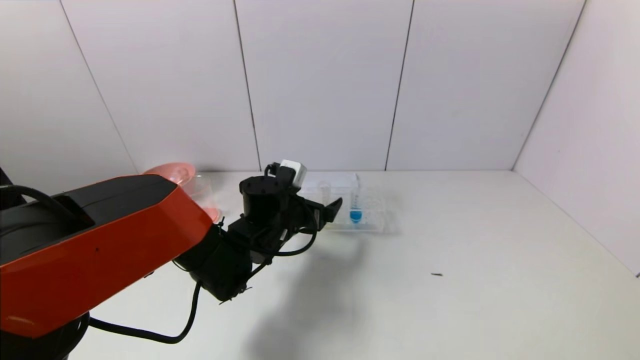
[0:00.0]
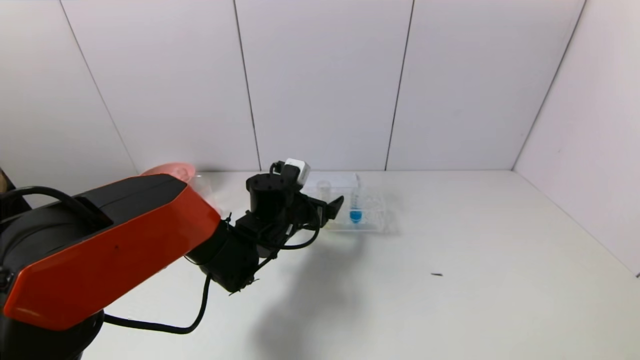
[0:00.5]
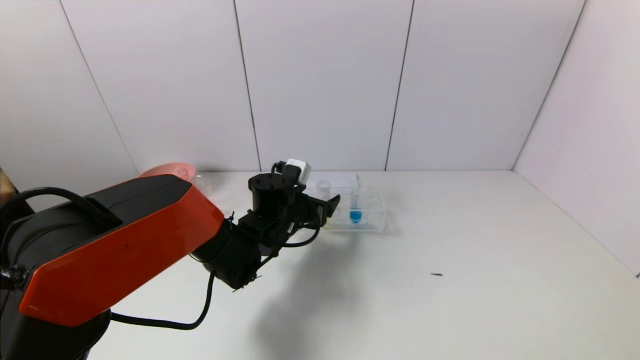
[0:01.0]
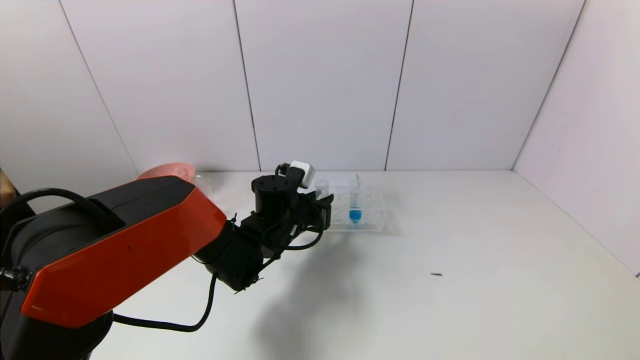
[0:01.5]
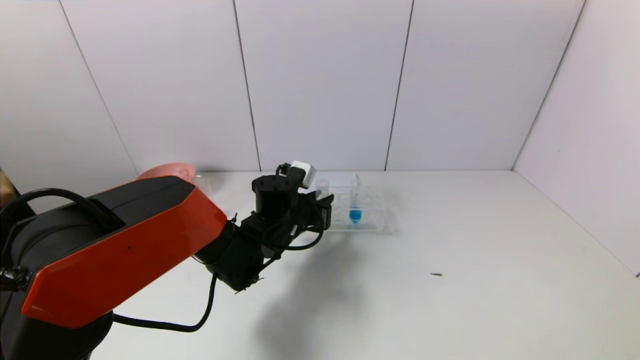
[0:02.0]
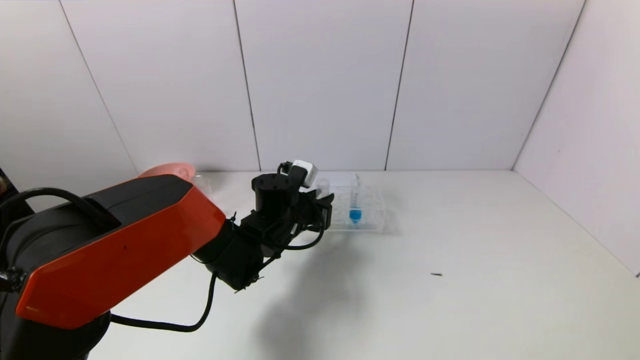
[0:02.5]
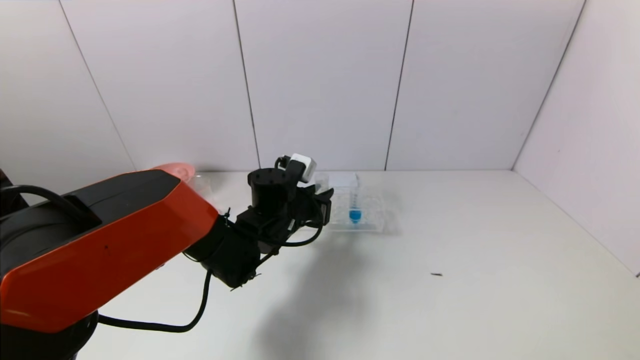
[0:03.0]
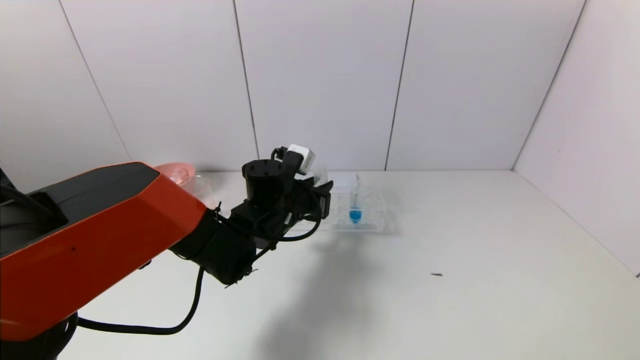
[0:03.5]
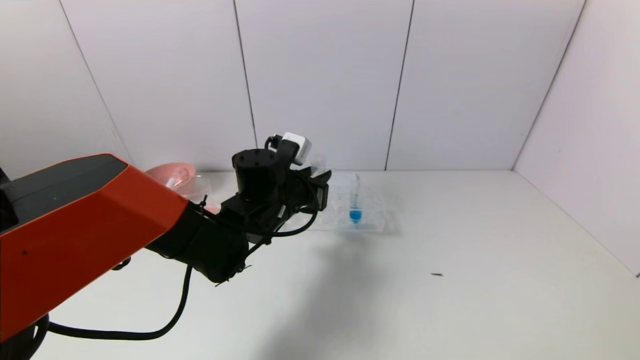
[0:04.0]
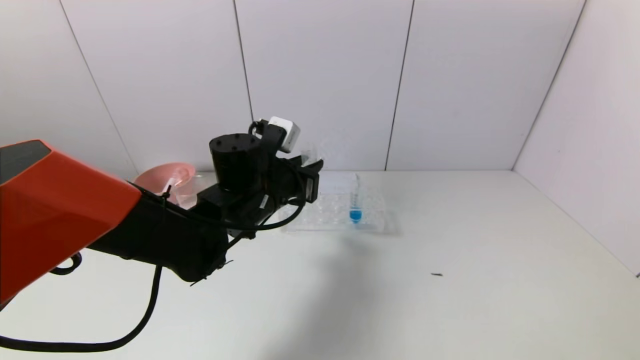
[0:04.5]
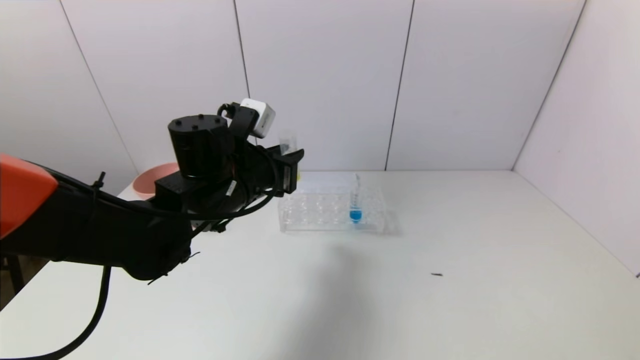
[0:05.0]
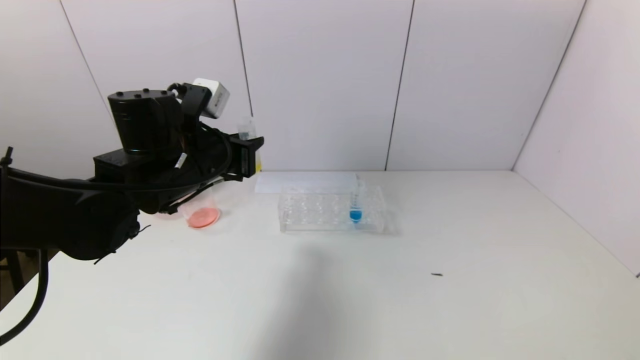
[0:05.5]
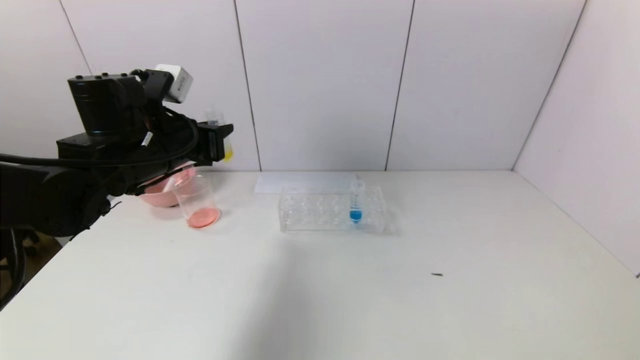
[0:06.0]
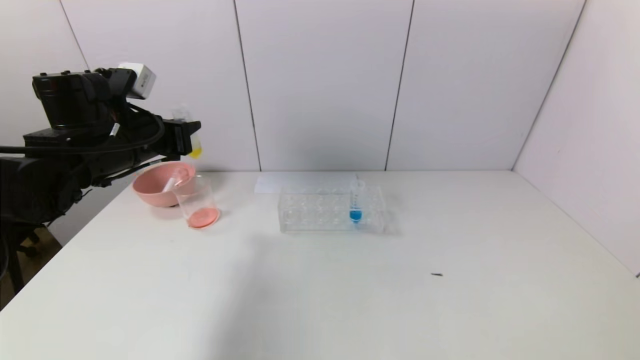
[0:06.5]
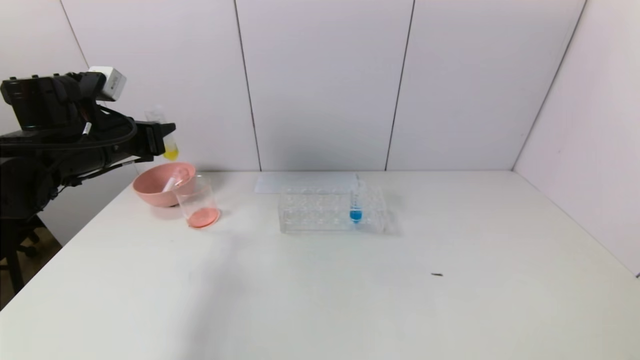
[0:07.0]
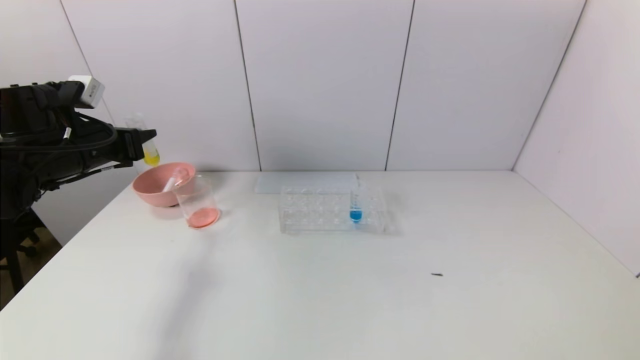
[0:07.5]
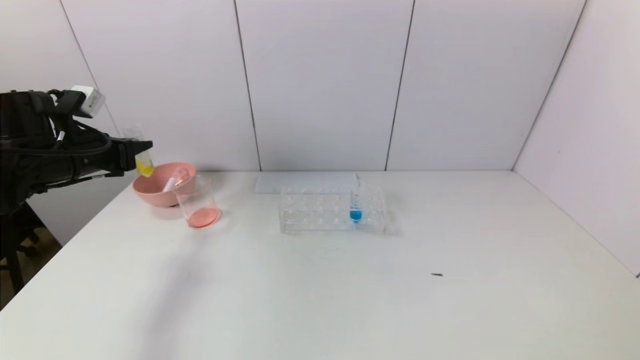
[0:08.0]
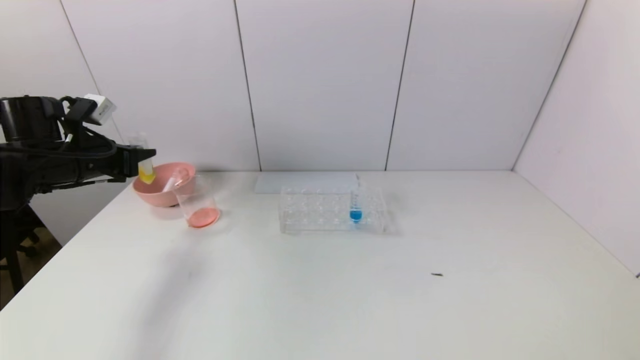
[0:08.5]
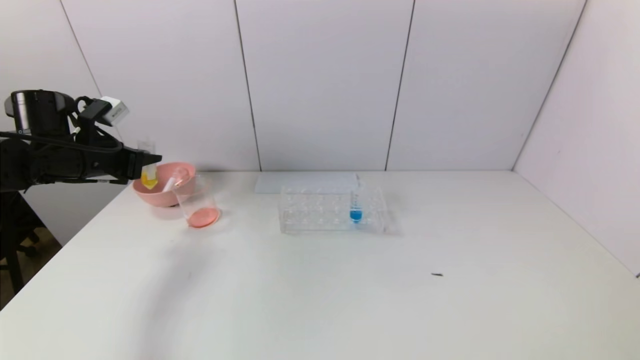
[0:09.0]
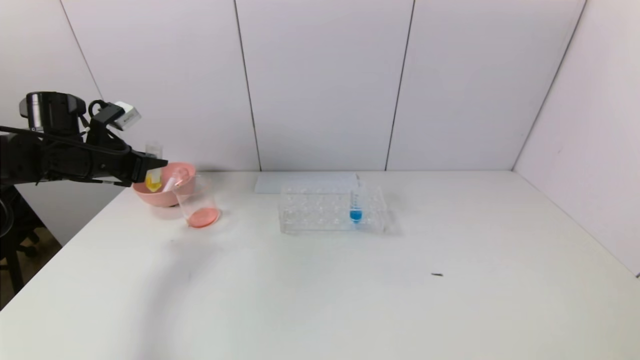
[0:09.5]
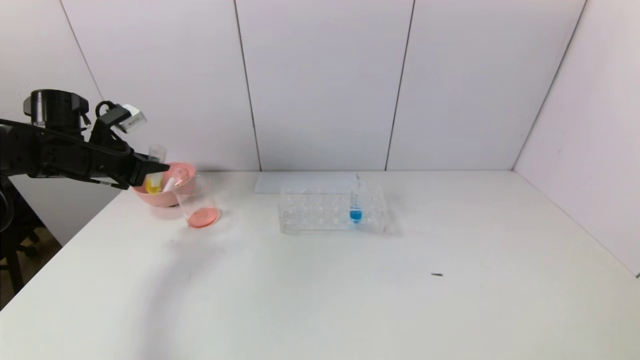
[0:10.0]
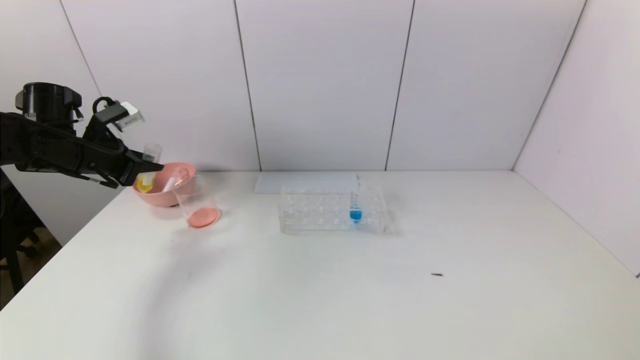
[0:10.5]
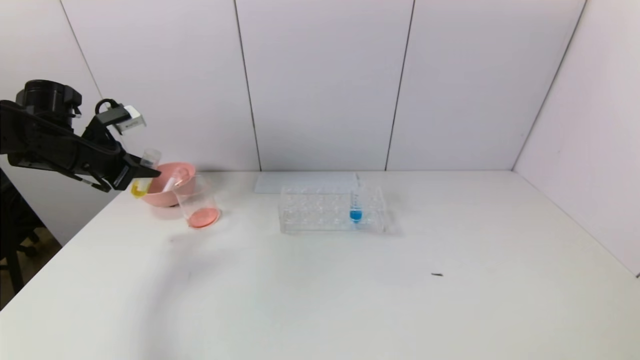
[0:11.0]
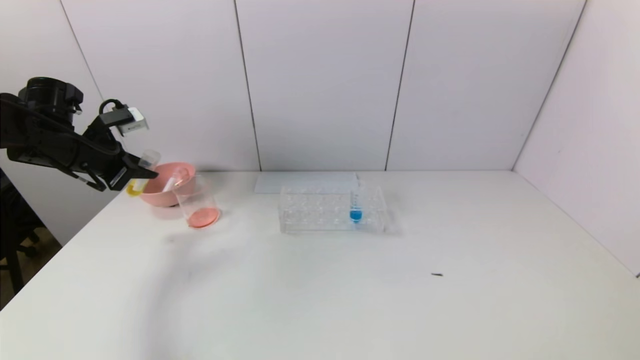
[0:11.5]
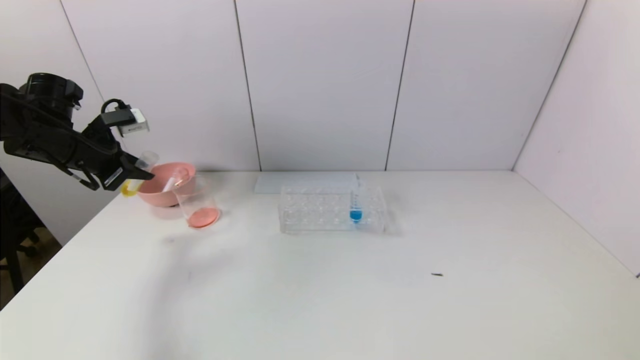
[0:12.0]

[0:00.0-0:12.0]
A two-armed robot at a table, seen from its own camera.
Task of the whole recording: pick up the test tube with yellow pigment and the test tube with red pigment by grippers and pour them into the beaker.
Step, 0:00.0 to 0:02.0: Grasp the yellow reagent with the left gripper.
0:00.0 to 0:02.0: The left gripper closes its fingers.
0:02.0 to 0:04.0: The left gripper travels upward by about 5 cm.
0:04.0 to 0:06.0: The left gripper moves to the left and upward, some 20 cm.
0:06.0 to 0:08.0: The left gripper heads to the left, covering about 15 cm.

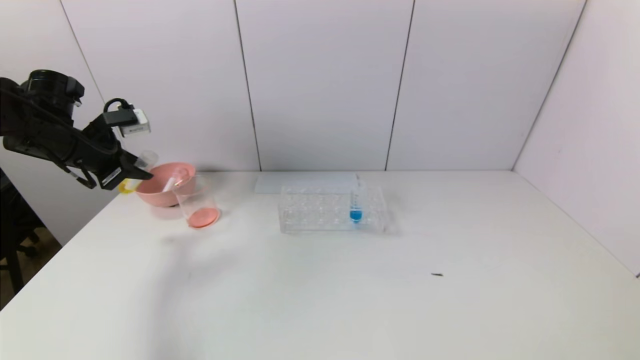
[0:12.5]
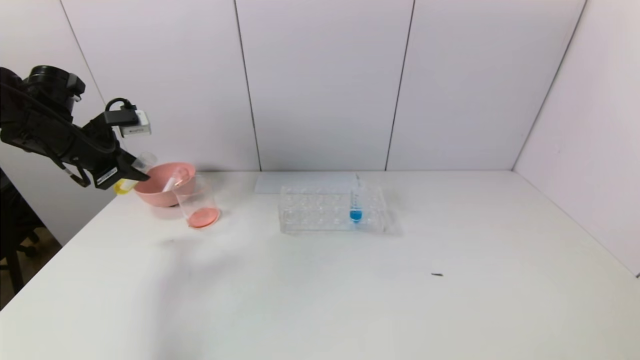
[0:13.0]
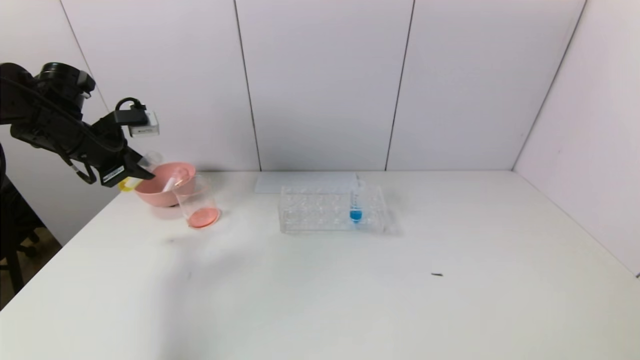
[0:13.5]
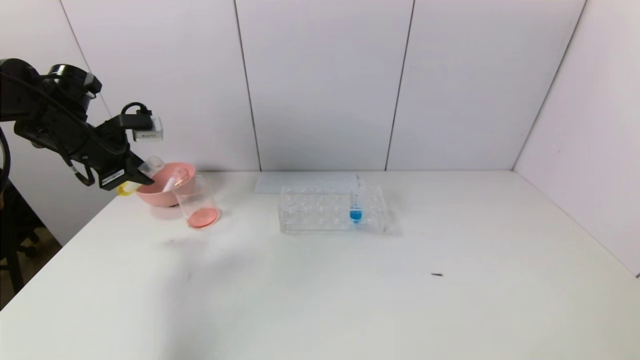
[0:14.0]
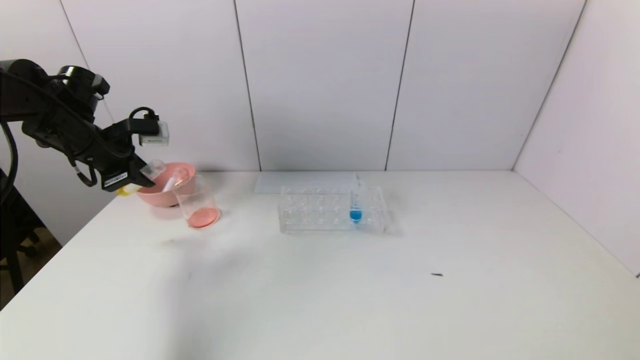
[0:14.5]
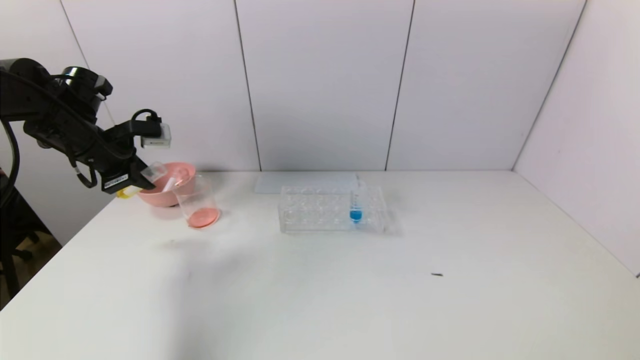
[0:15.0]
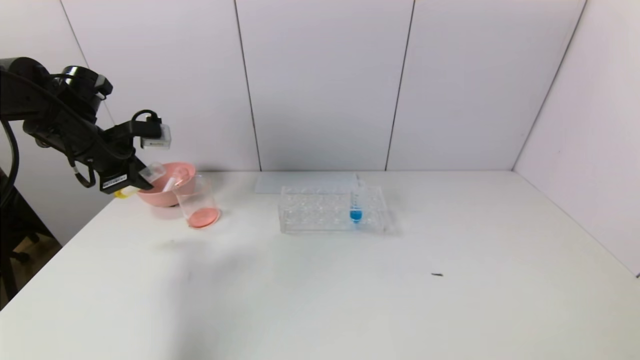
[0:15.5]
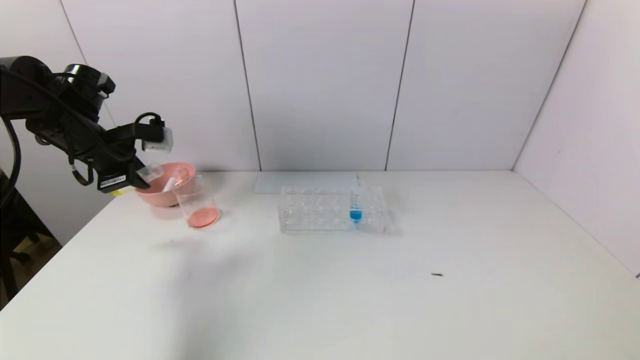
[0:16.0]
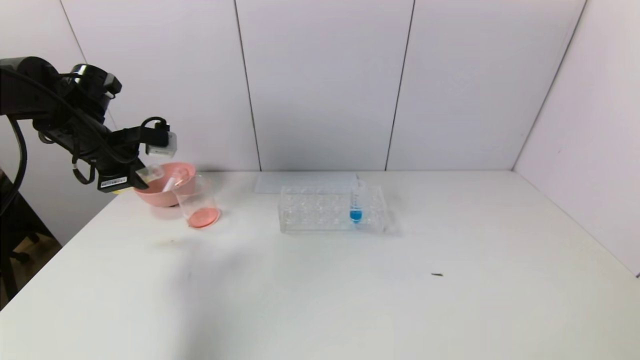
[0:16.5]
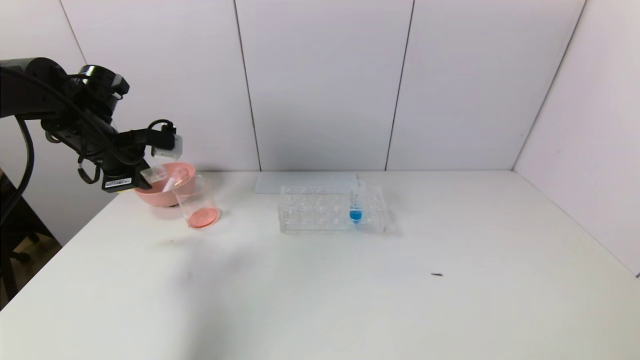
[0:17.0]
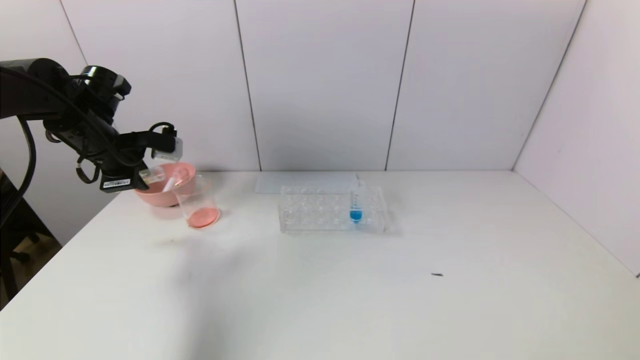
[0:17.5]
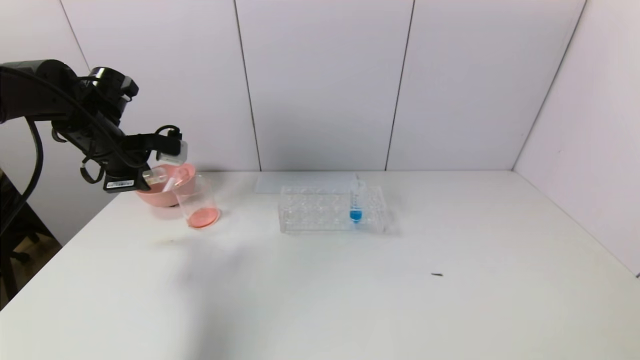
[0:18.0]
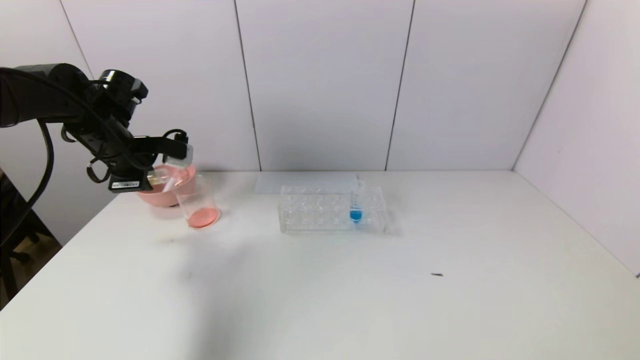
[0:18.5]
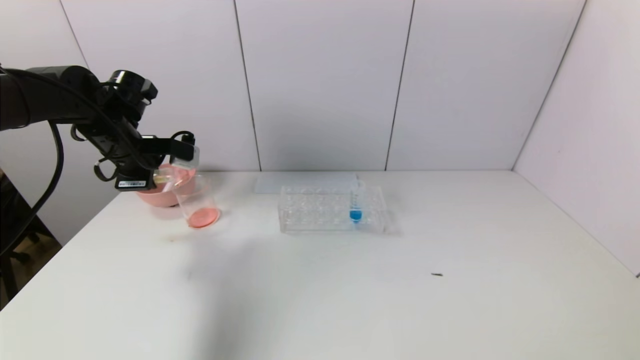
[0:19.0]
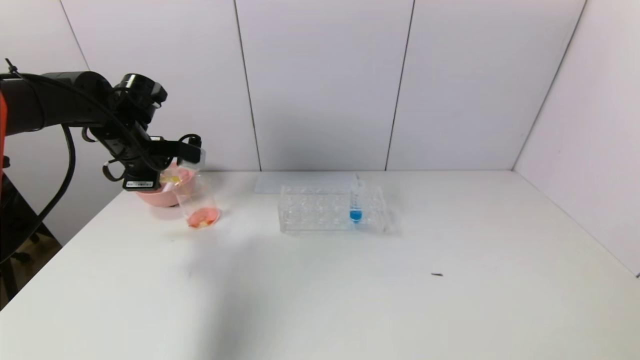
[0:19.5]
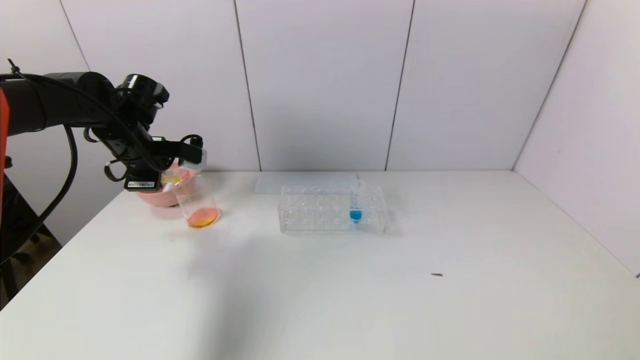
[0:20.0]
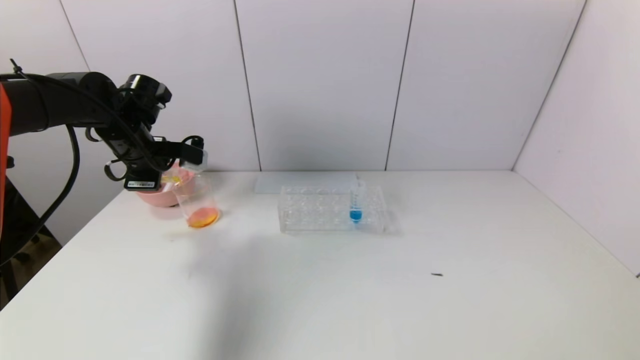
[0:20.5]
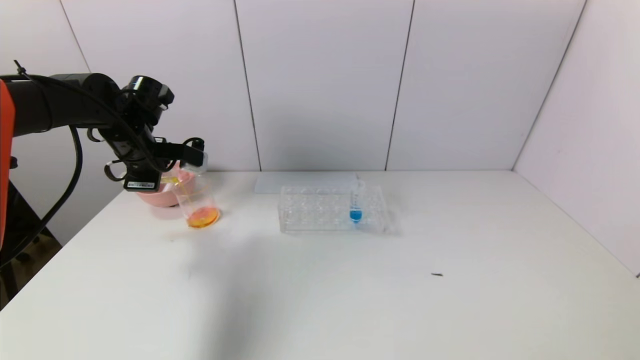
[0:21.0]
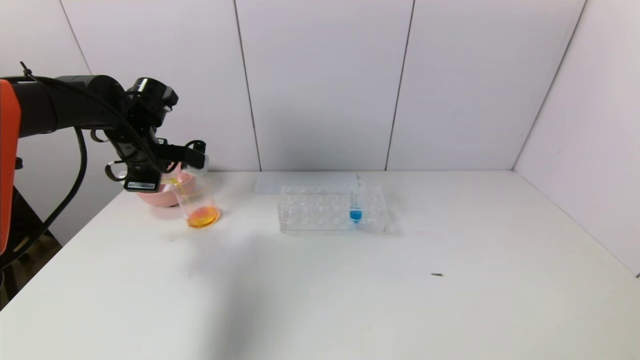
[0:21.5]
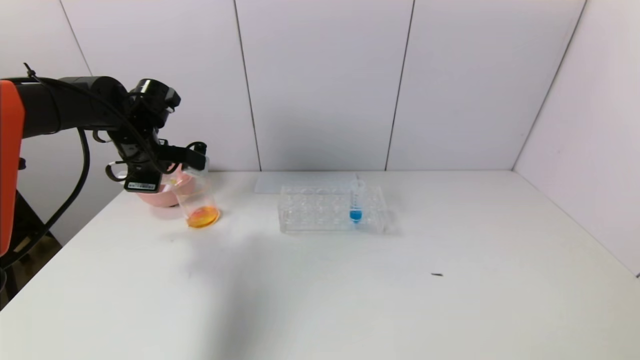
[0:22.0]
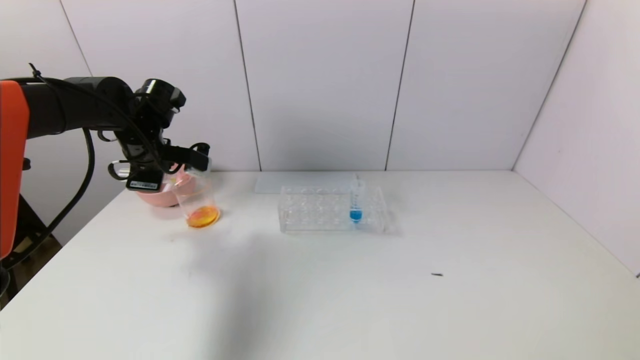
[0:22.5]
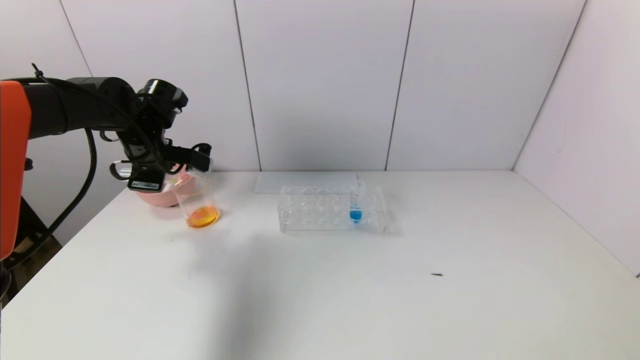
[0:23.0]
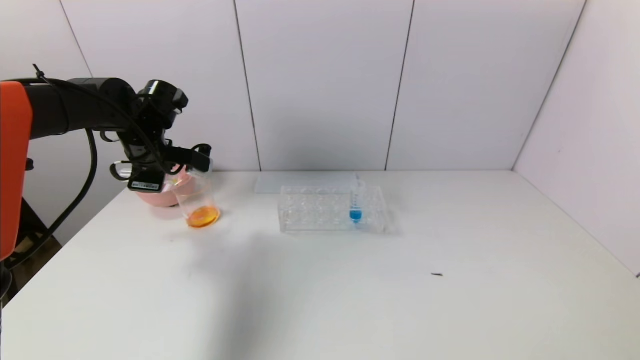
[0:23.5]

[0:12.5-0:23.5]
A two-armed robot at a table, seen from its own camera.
Task of the whole recording: pick up the test tube with yellow pigment and the test tube with red pigment by grippers and pour them into the beaker.
0:12.5 to 0:14.5: There are only small adjustments of the grippers.
0:14.5 to 0:16.0: The grippers stay close to where they were, moving slightly.
0:16.0 to 0:18.0: There are only small adjustments of the grippers.
0:18.0 to 0:21.5: There are only small adjustments of the grippers.
0:21.5 to 0:23.5: Both grippers stay put.
